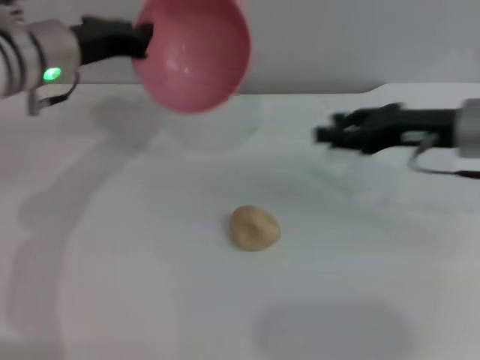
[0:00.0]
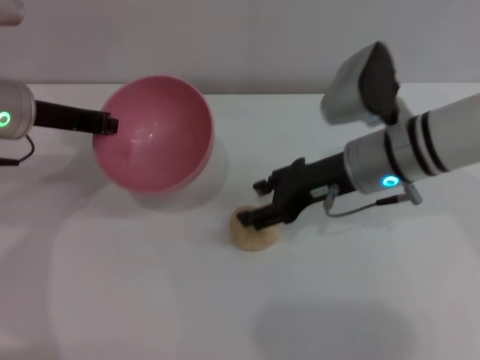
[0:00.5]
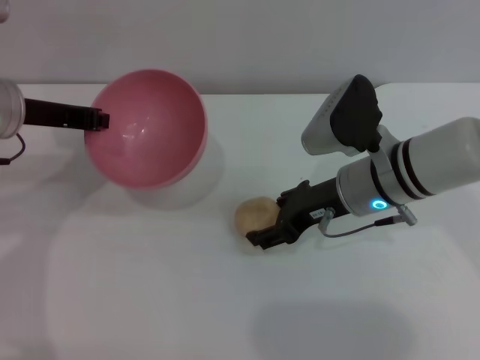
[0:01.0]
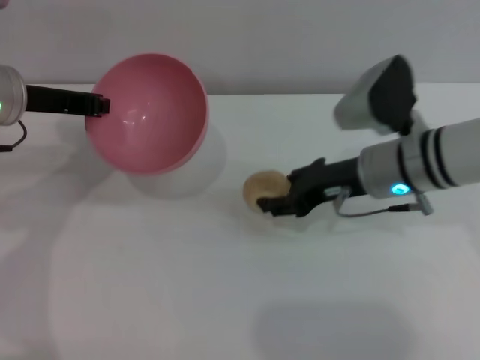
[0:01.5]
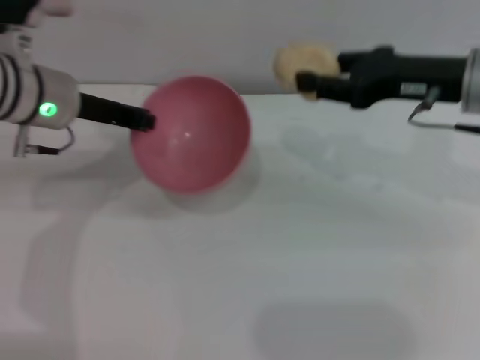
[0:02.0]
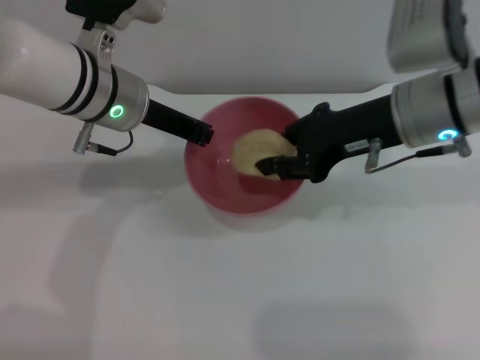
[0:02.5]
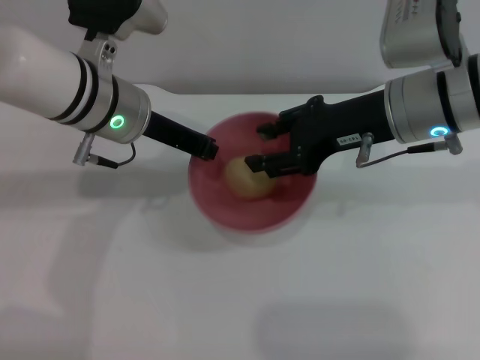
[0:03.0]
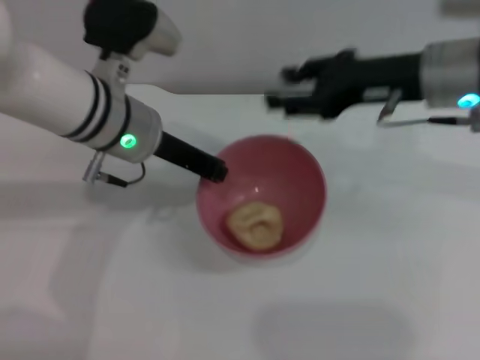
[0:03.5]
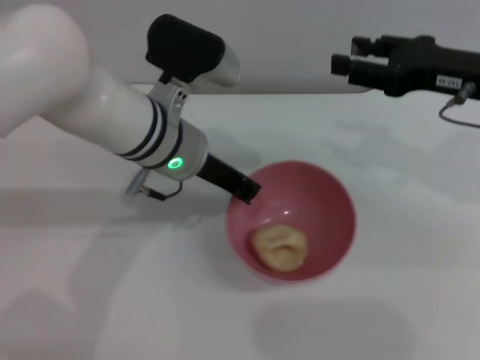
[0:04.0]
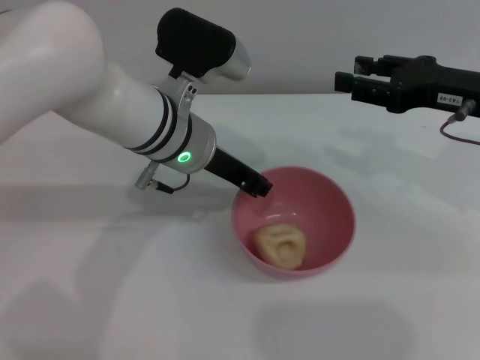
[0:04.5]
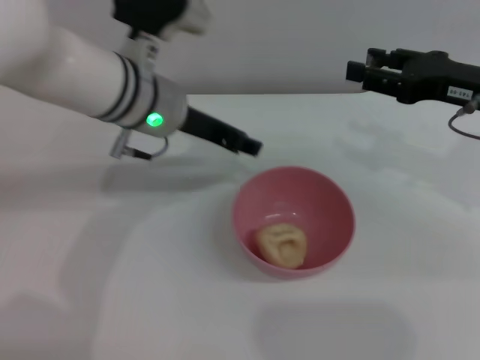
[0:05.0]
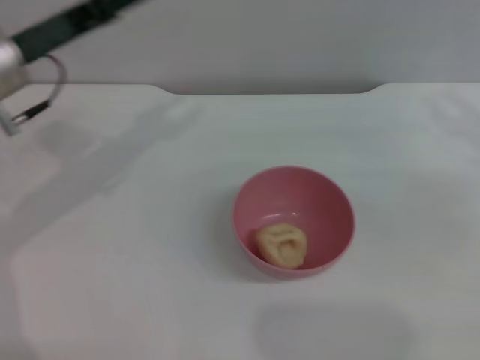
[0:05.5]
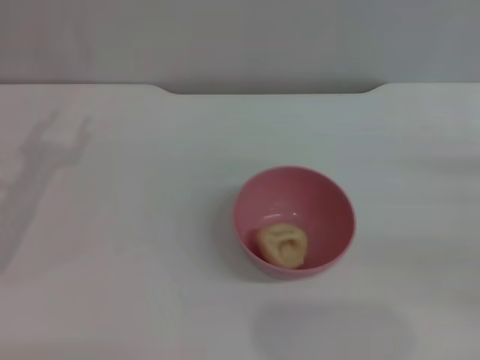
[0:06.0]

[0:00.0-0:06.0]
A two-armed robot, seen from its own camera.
Task of the whole recording: put the egg yolk pastry into the pink bowl and pour it out repeatedly.
Step, 0:00.0 to 0:01.5: Pick up the egg yolk pastry with the right gripper.
Step, 0:02.0 to 0:03.0: Place the egg yolk pastry into the bowl.
Step, 0:03.5 to 0:04.5: Place the bowl on the table.
0:00.0 to 0:02.0: The right gripper is displaced upward by roughly 5 cm, and opens, then closes once more.
0:02.0 to 0:04.0: The right gripper goes to the left and returns, roughly 5 cm each way. Meanwhile the left gripper goes some 10 cm to the right.
0:04.0 to 0:06.0: The left gripper is displaced to the left by some 25 cm, and opens its fingers, while the right gripper travels to the right, downward and backward by about 15 cm.
